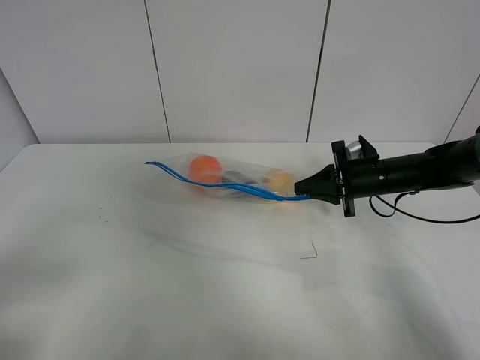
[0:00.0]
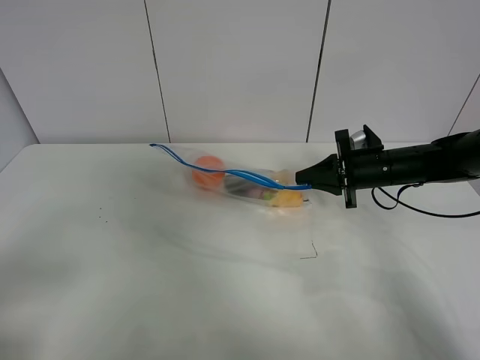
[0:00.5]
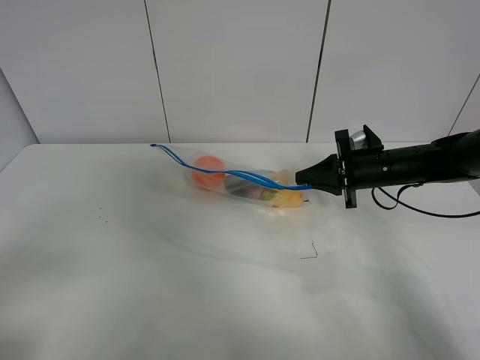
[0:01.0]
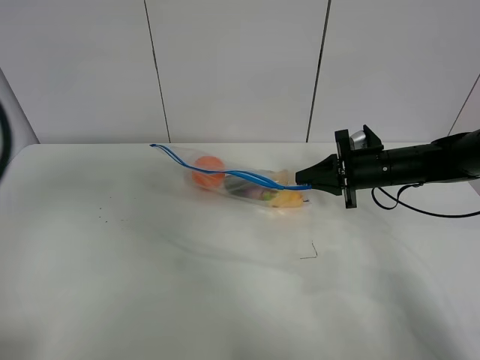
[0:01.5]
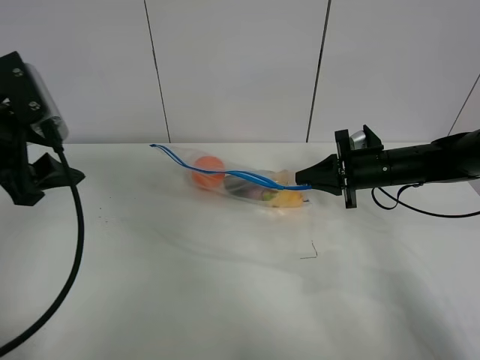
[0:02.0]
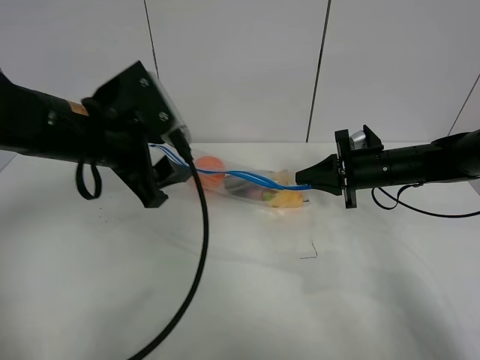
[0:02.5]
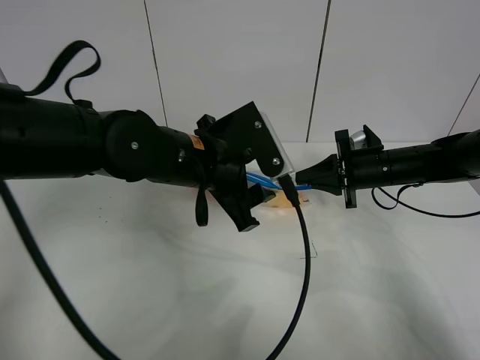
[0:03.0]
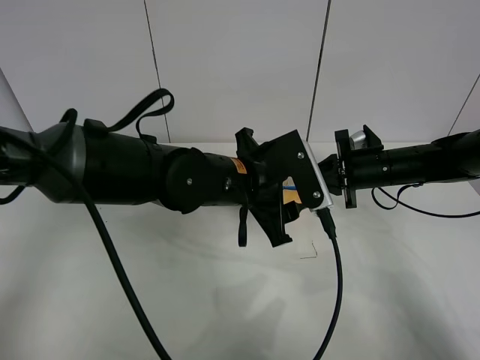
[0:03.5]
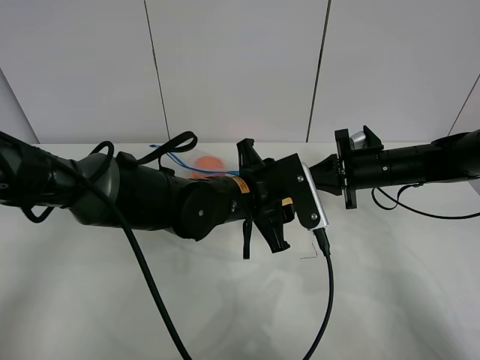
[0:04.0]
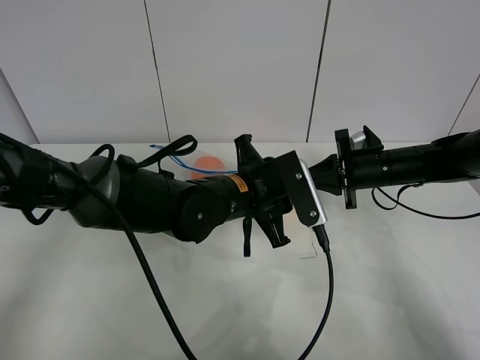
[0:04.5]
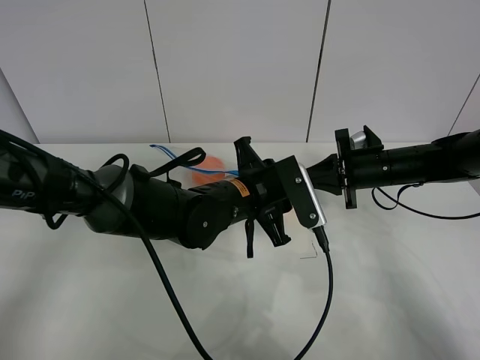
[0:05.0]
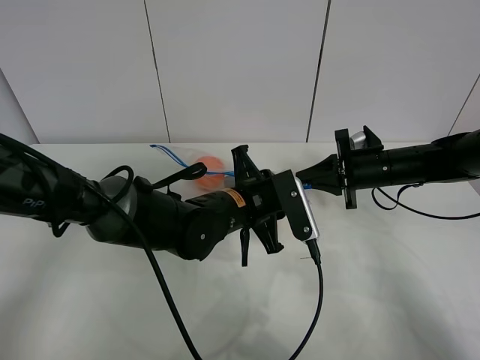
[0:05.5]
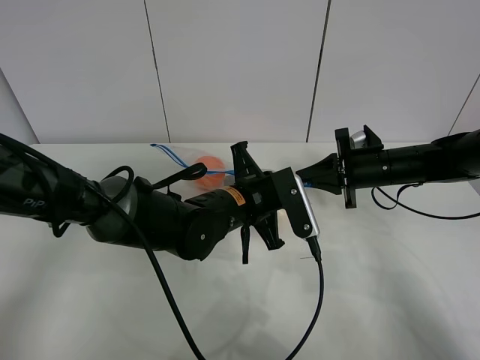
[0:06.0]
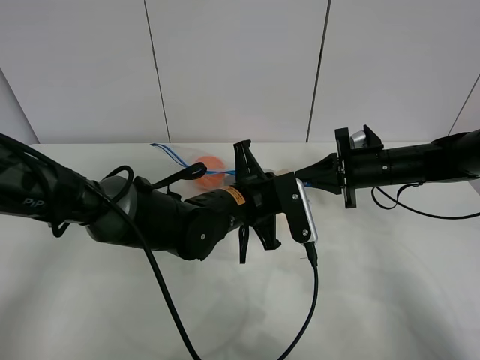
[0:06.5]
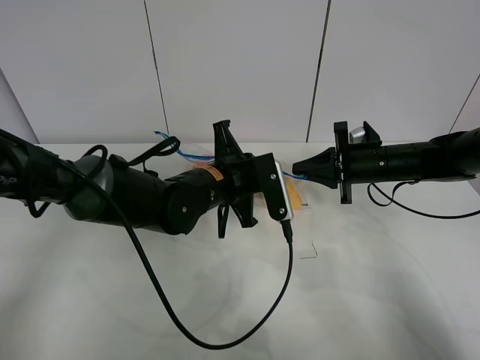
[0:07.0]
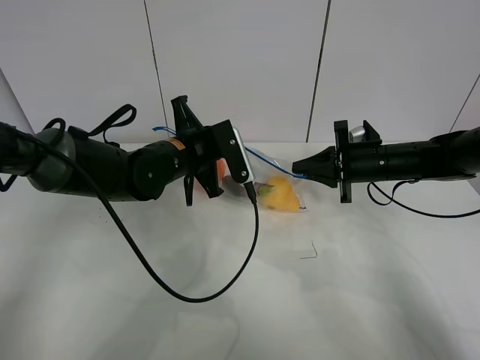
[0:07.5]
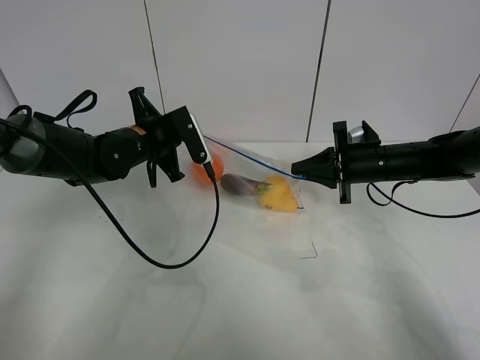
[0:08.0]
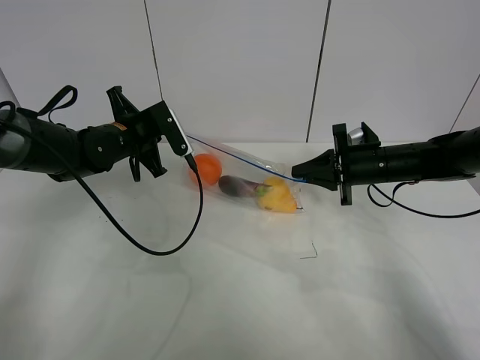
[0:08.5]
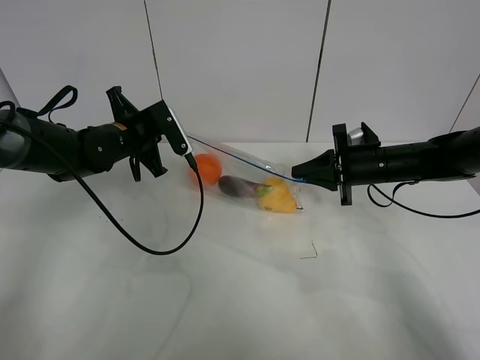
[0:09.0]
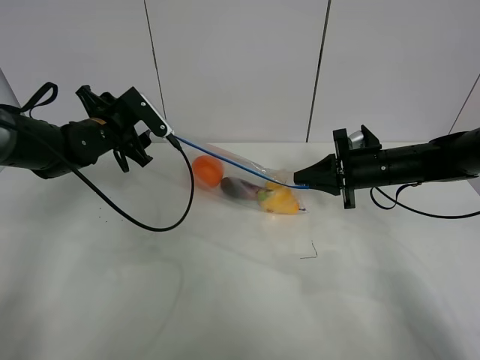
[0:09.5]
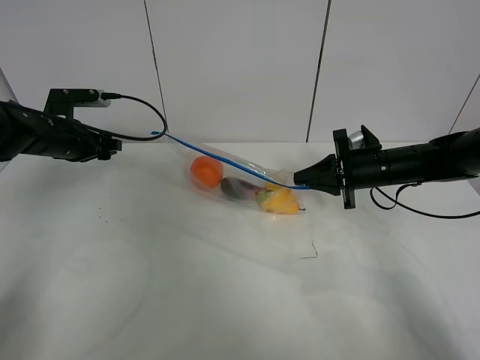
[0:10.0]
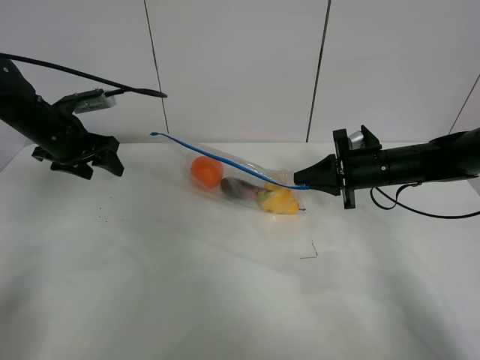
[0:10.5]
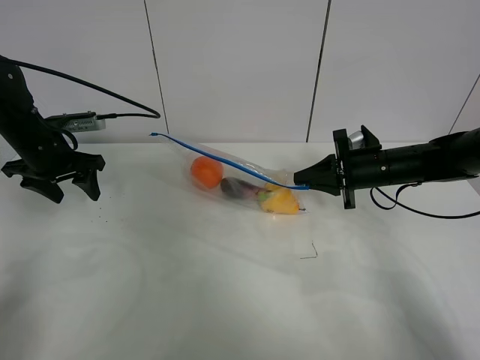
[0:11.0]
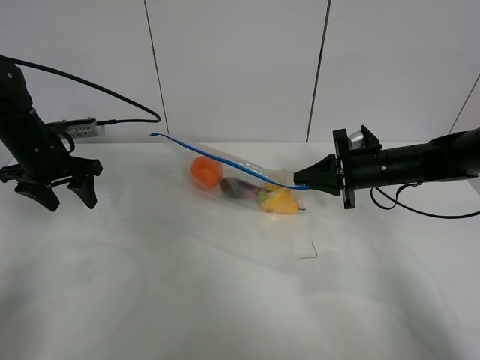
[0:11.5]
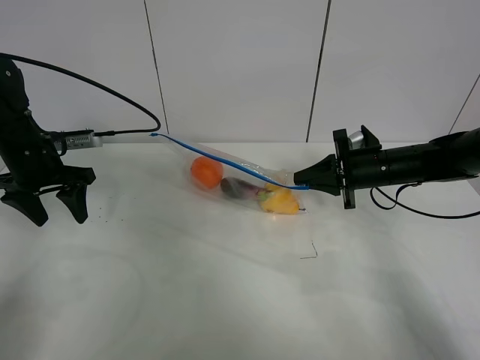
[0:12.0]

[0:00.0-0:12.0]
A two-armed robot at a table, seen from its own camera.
Step, 0:01.0 to 0:09.0: Pull the fruit bag with left gripper.
0:00.0 to 0:02.0: The left gripper goes approximately 25 cm forward.
0:02.0 to 0:04.0: The left gripper shifts some 30 cm to the right and downward.
0:04.0 to 0:06.0: The left gripper closes up.
0:06.0 to 0:08.0: The left gripper is displaced to the left and forward by roughly 20 cm.
0:08.0 to 0:10.0: The left gripper moves to the left, roughly 15 cm, and opens its fingers.
0:10.0 to 0:12.0: The left gripper travels backward by approximately 5 cm.

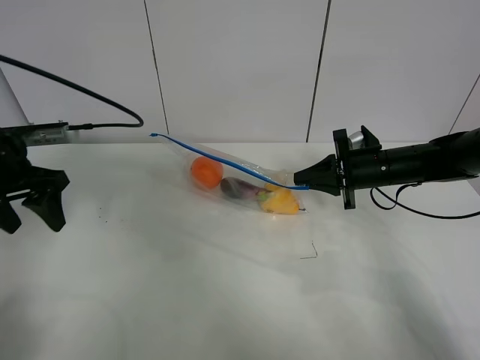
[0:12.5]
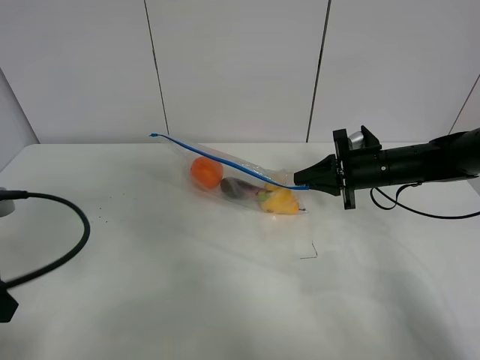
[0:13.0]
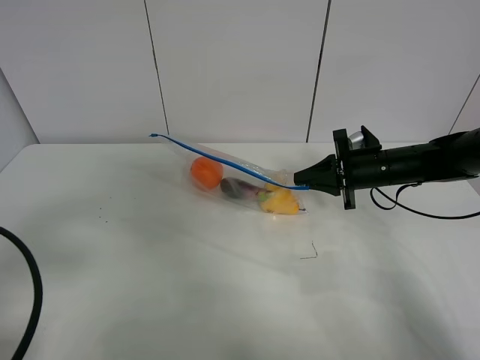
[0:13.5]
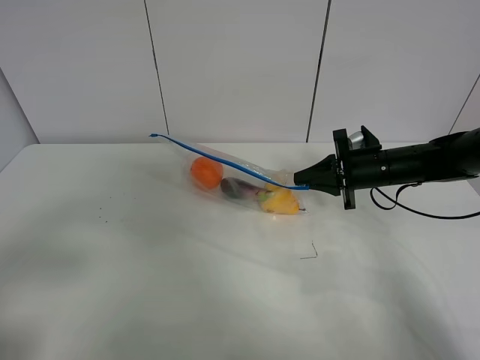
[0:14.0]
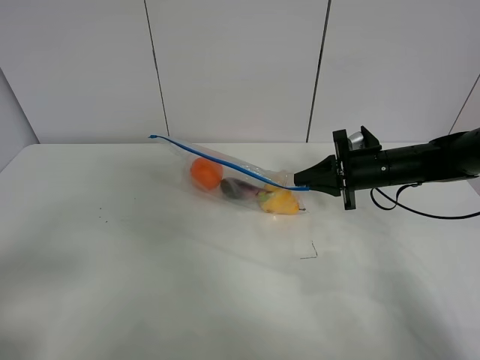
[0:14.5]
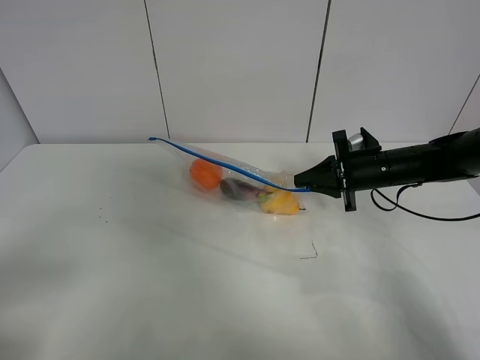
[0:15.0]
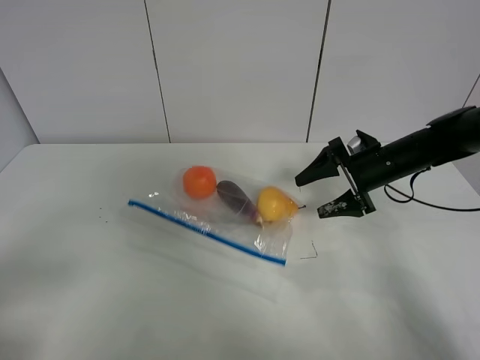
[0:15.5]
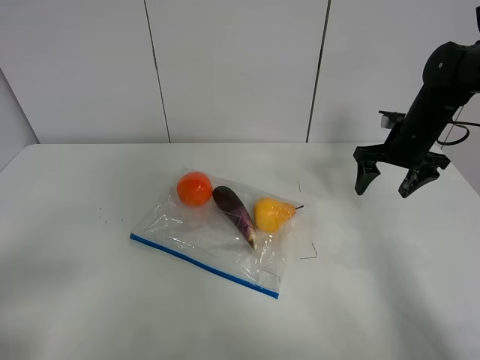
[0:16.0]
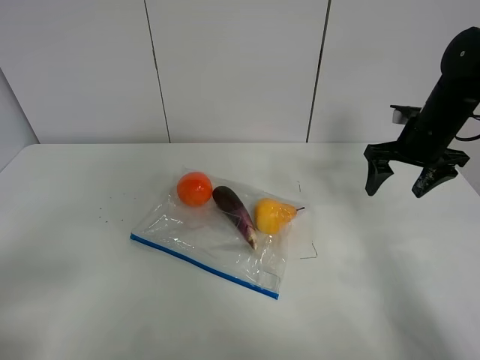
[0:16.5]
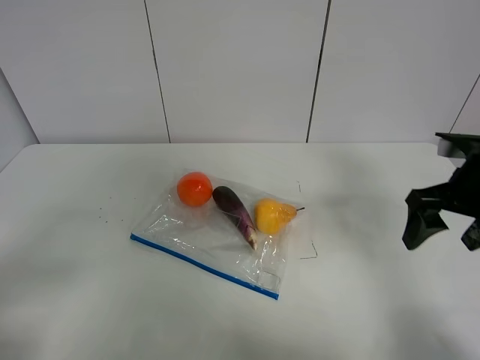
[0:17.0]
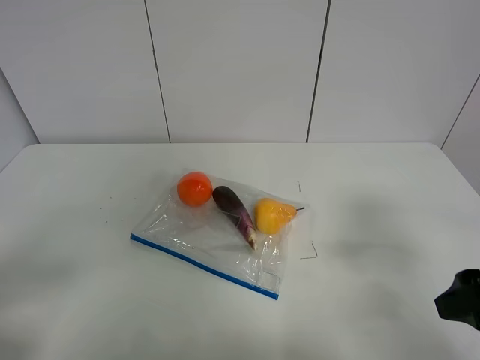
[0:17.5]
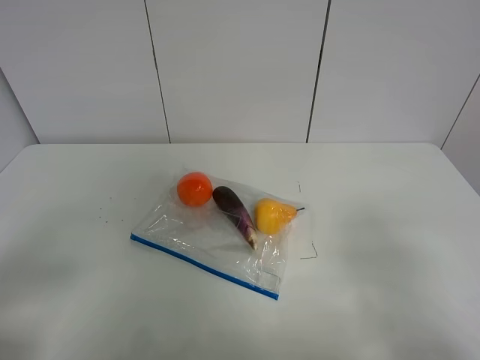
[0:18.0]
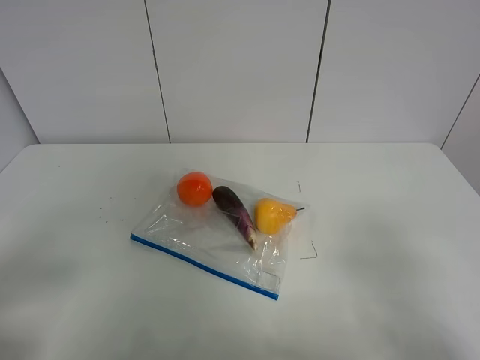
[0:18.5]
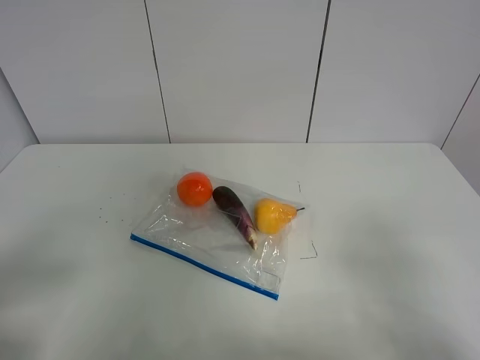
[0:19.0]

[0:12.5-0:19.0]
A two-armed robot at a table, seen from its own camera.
0:12.5 to 0:14.5: The left gripper shifts approximately 25 cm backward.
0:14.5 to 0:17.0: The right gripper is displaced backward, upward and to the right by roughly 15 cm, and opens up.
0:17.0 to 0:19.0: The right gripper heads backward, covering some 25 cm.

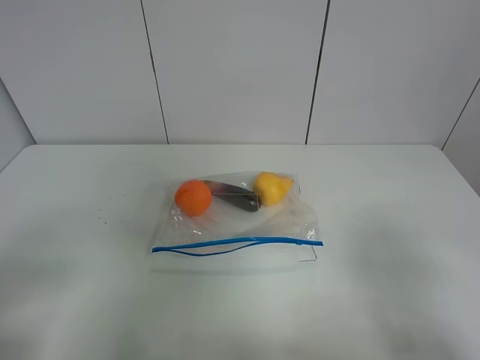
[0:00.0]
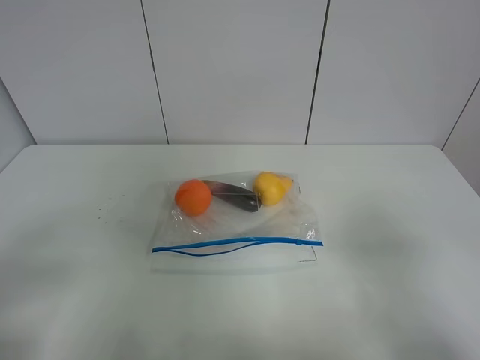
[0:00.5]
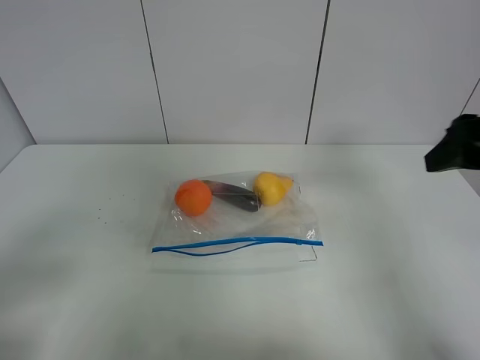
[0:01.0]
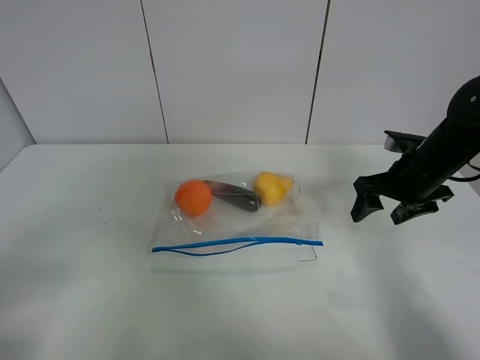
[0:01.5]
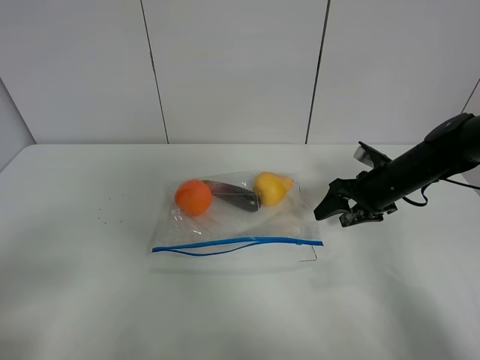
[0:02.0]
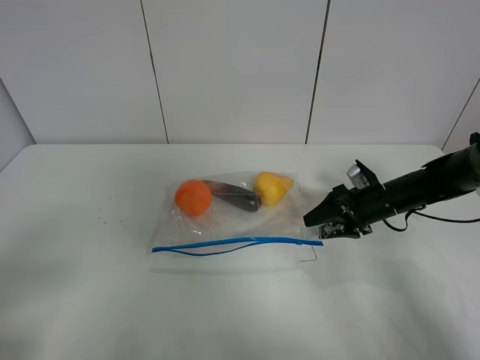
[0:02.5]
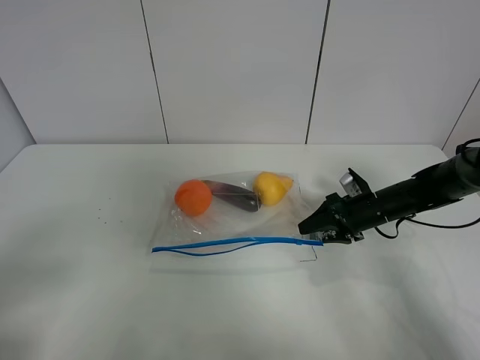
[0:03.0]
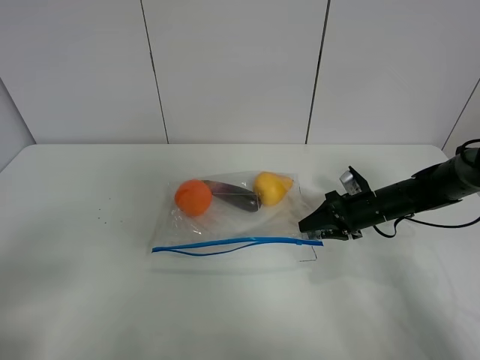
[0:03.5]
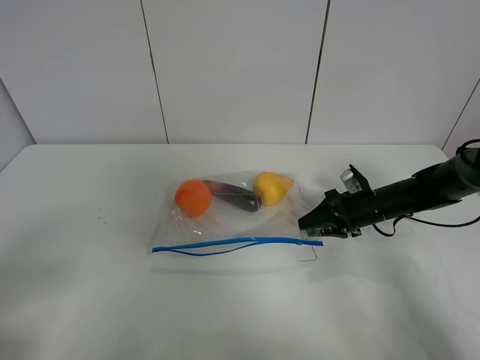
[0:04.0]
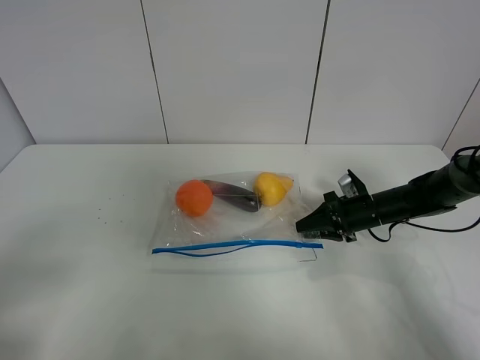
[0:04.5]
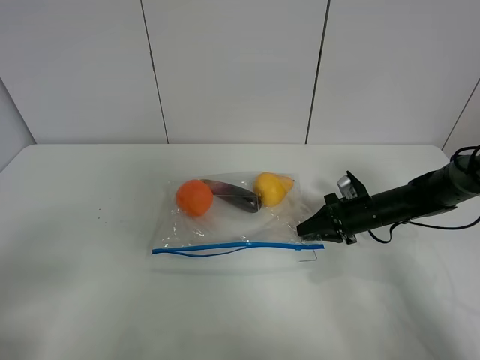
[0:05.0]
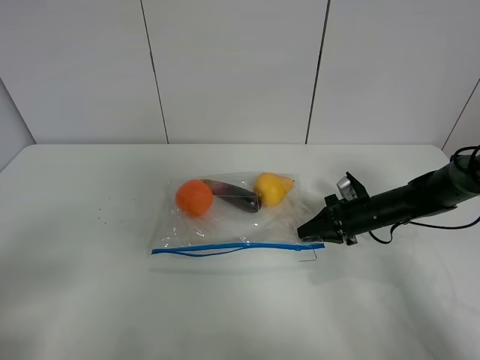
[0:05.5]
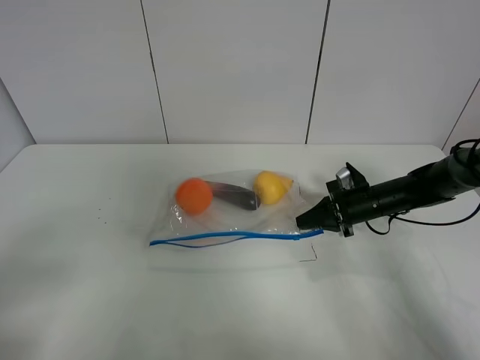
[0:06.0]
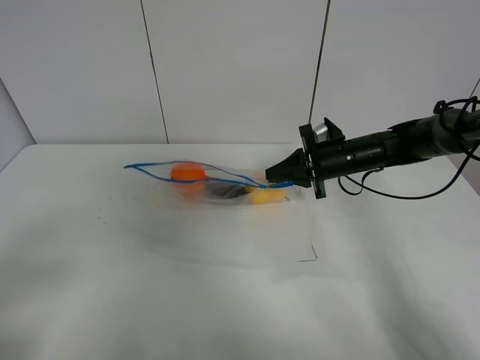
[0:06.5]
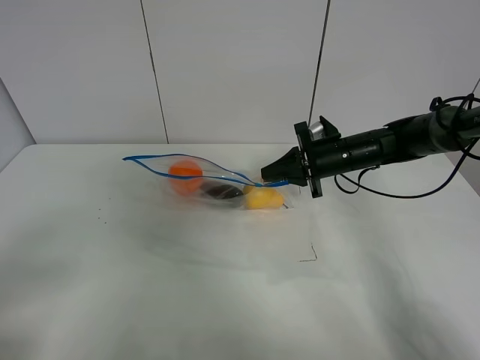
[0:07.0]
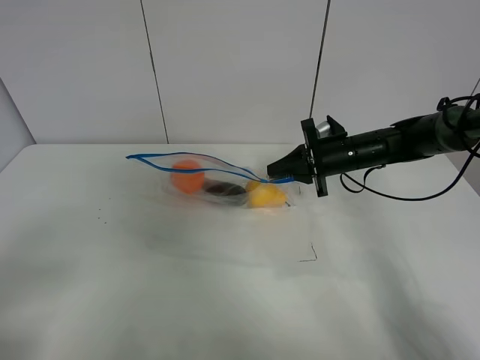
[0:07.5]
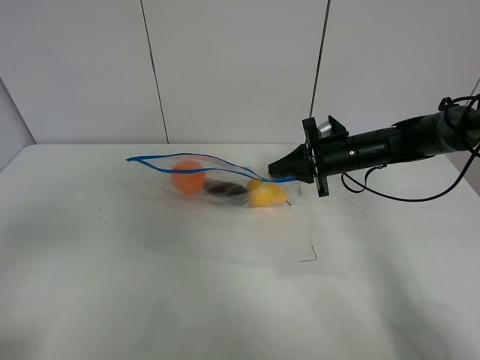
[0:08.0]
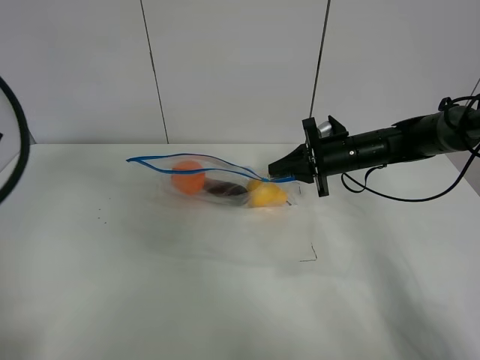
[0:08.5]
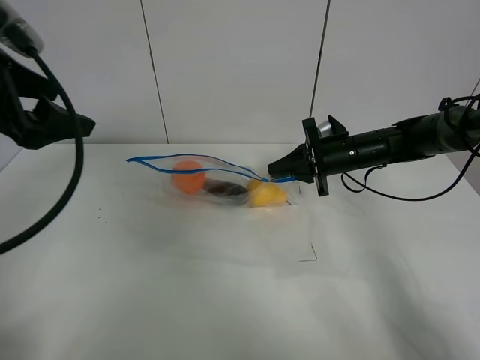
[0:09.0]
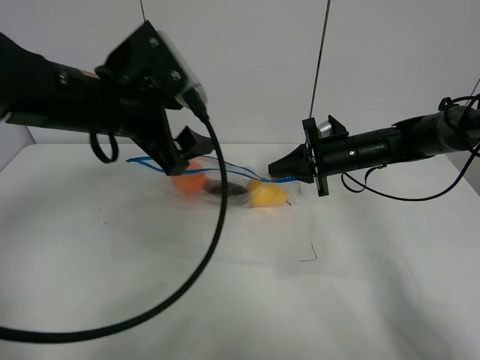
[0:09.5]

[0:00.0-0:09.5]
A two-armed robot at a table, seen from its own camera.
Step, 0:00.0 to 0:05.5: Grasp the fruit bag with right gripper.
Step, 0:06.0 to 0:06.5: Lift the fruit bag with your right gripper.
0:00.0 to 0:02.0: The right gripper shifts roughly 40 cm forward and downward.
0:02.0 to 0:04.0: The right gripper goes roughly 5 cm downward.
0:04.0 to 0:05.5: The grippers make only small movements.
0:05.5 to 0:07.5: The right gripper moves upward and to the left, about 10 cm.
0:07.5 to 0:09.5: The left gripper shifts approximately 30 cm forward and to the right.
